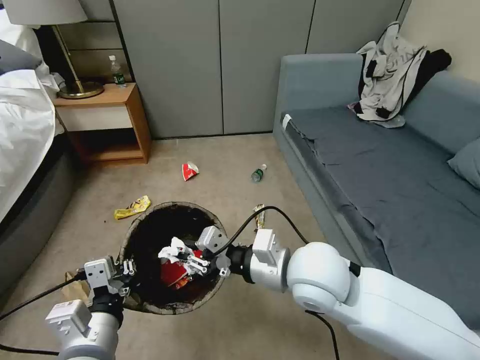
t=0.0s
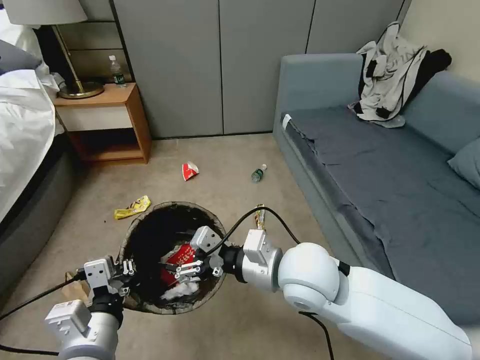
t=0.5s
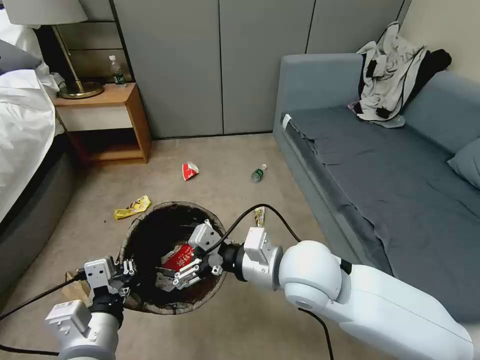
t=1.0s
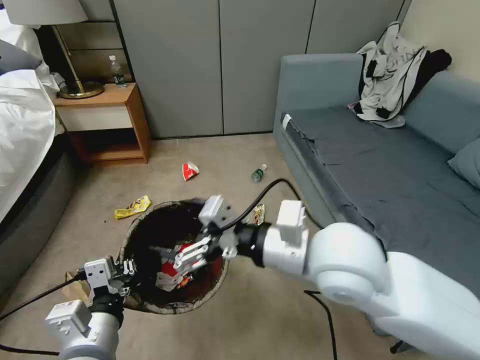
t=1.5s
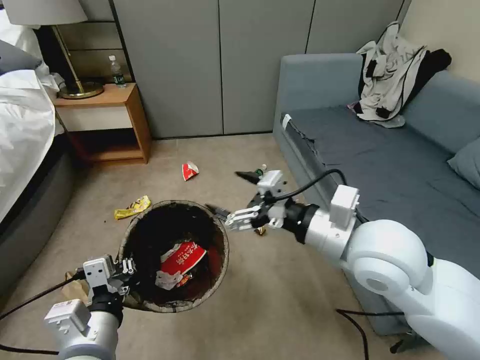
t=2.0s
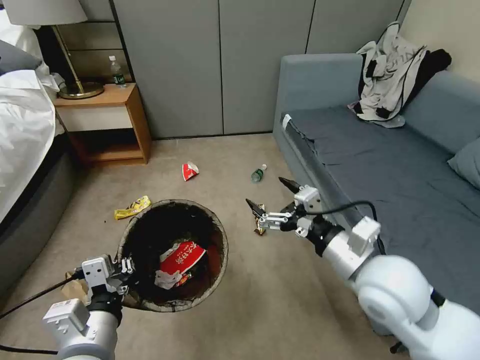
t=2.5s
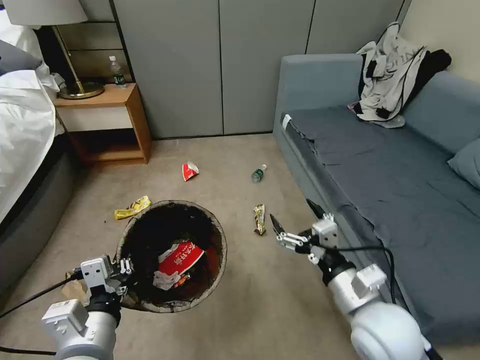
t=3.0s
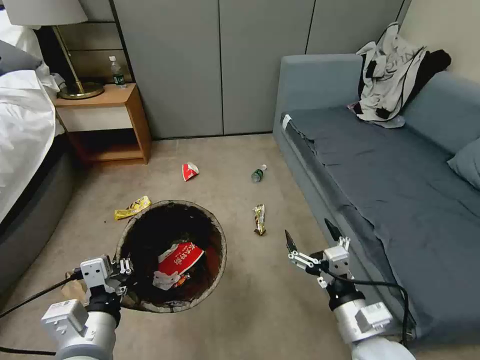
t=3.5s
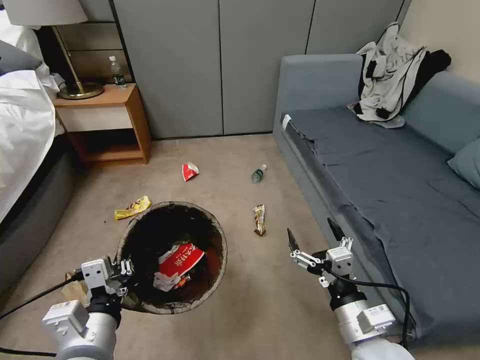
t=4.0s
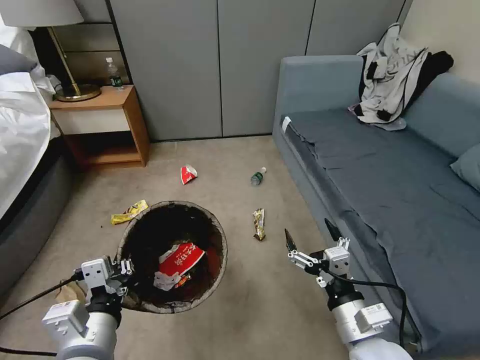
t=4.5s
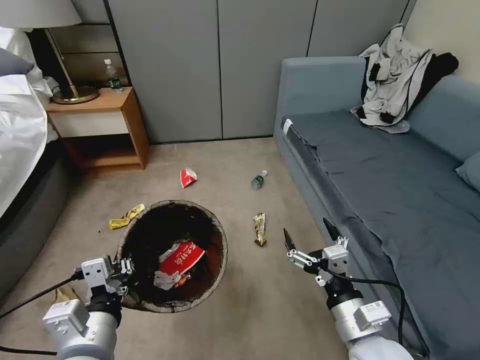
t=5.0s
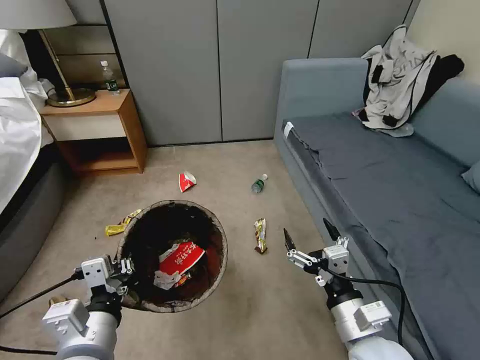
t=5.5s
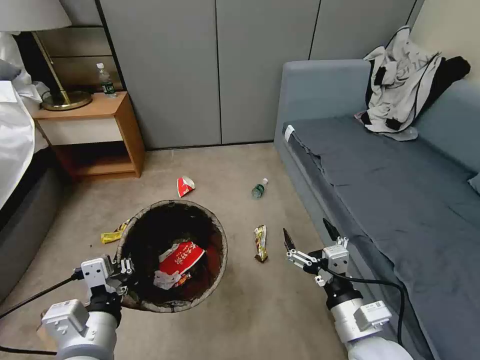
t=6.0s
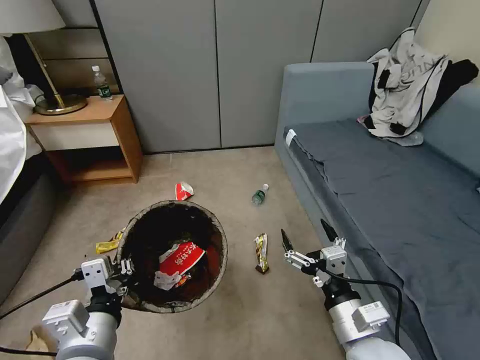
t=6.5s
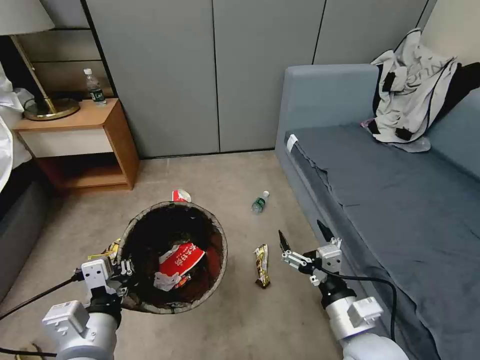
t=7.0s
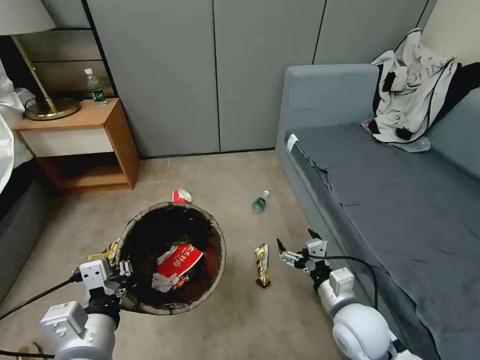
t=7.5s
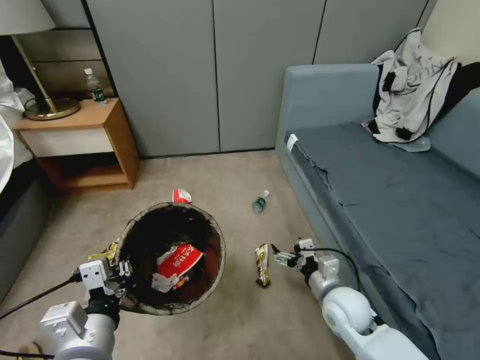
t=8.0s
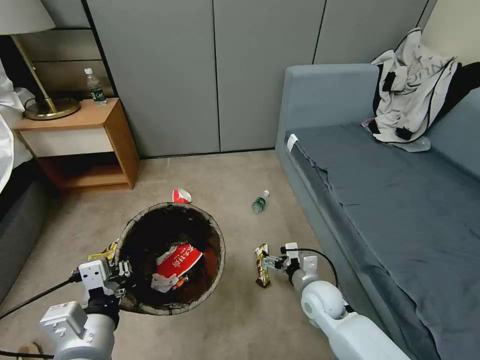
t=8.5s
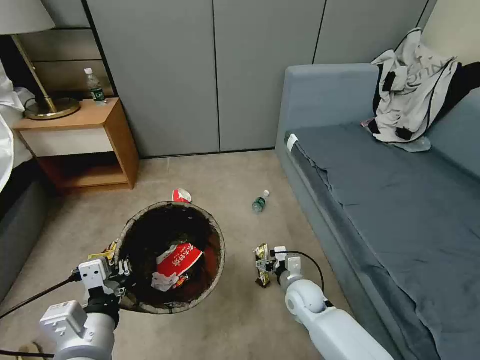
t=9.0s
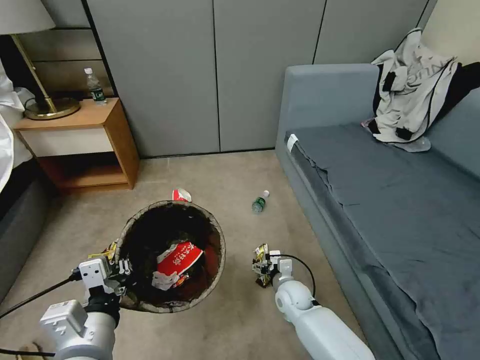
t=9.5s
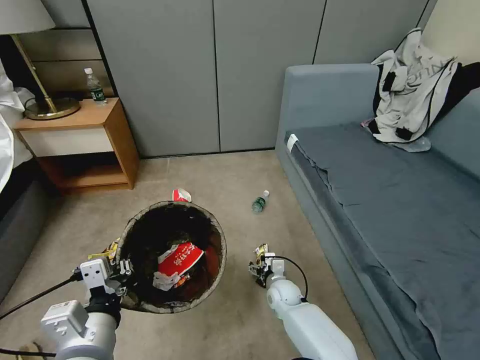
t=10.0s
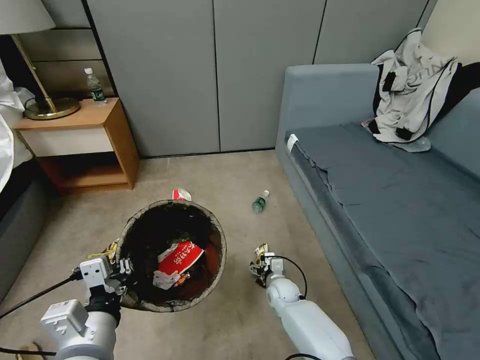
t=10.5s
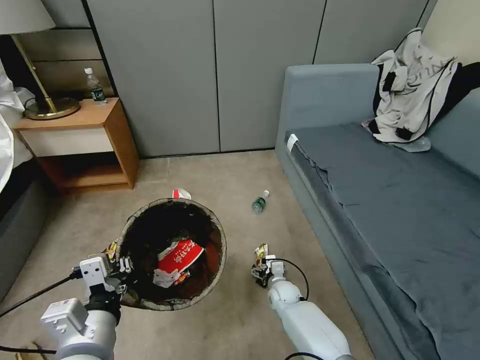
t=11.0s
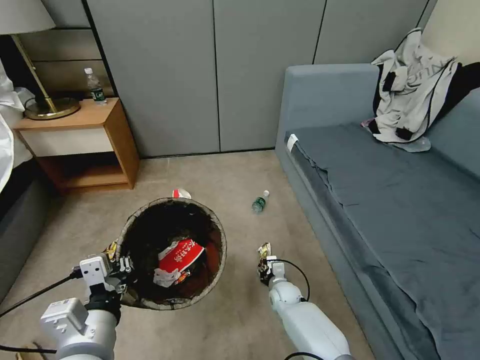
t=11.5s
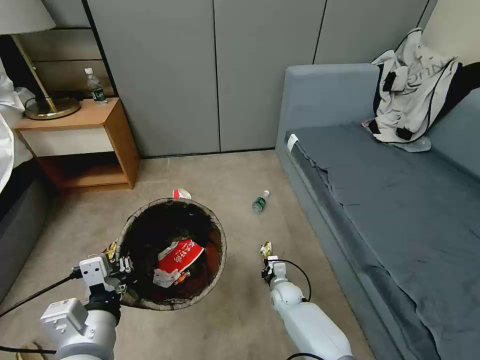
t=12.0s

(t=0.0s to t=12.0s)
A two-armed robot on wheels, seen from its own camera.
Task of the whole recording: Pick up the trash bin, then pick up the garbage from the floor and place it into the trash bin.
t=0.0s - t=2.0s: The right gripper shifts about 10 cm to the right and upward, and opens.
t=2.0s - t=4.0s: The right gripper shifts roughly 20 cm downward and backward.
t=6.0s - t=8.0s: The right gripper travels forward and downward by about 15 cm.
t=8.0s - t=10.0s: The right gripper moves downward, to the left and forward, some 20 cm.
t=10.0s - t=12.0s: The right gripper closes.

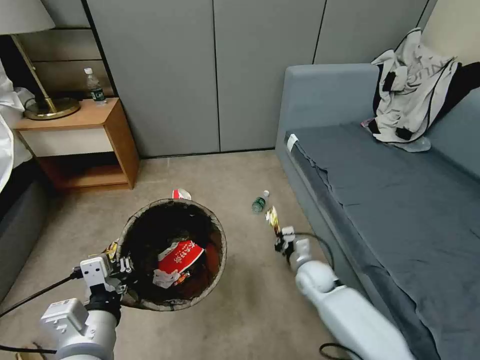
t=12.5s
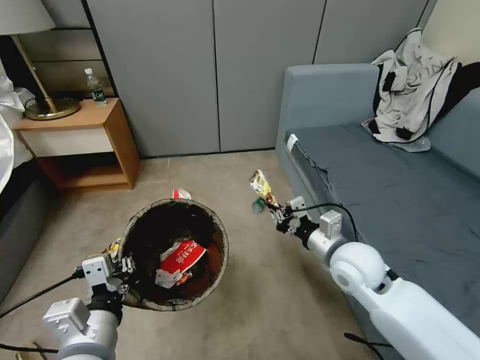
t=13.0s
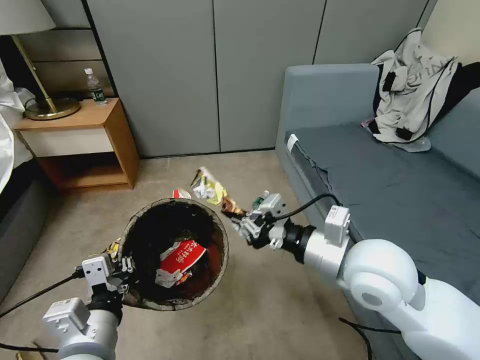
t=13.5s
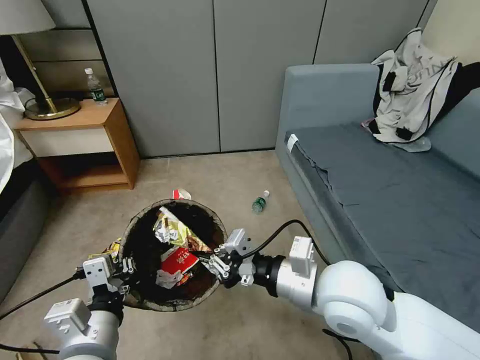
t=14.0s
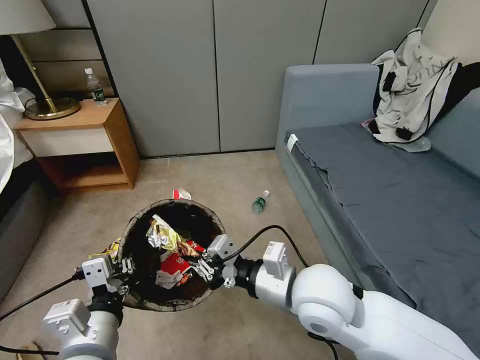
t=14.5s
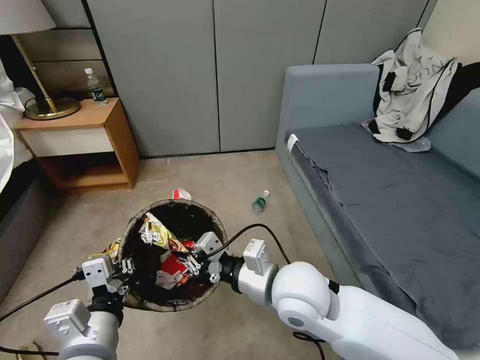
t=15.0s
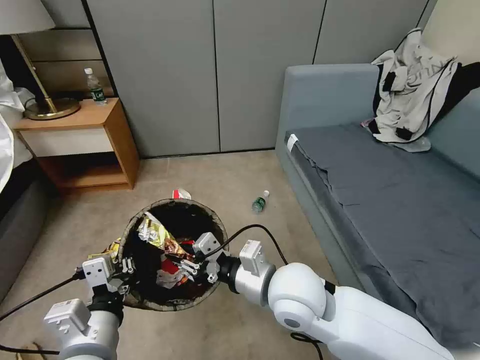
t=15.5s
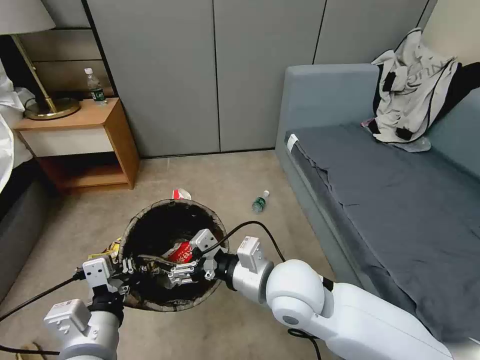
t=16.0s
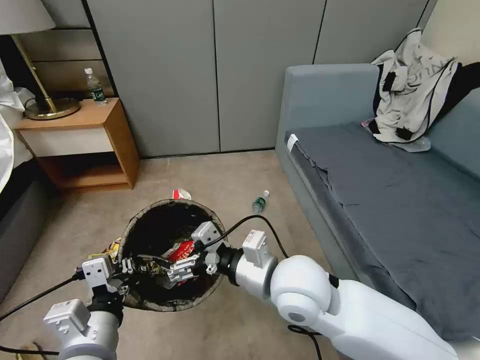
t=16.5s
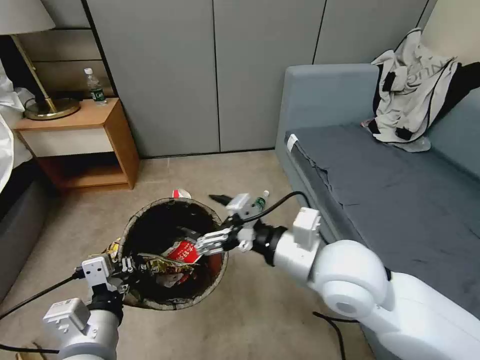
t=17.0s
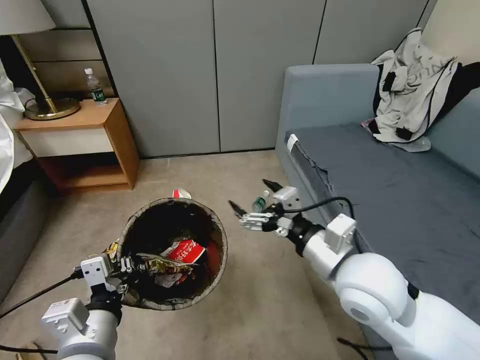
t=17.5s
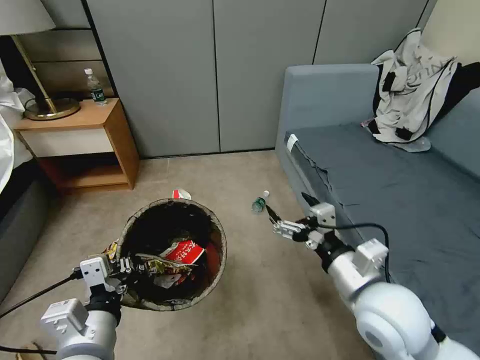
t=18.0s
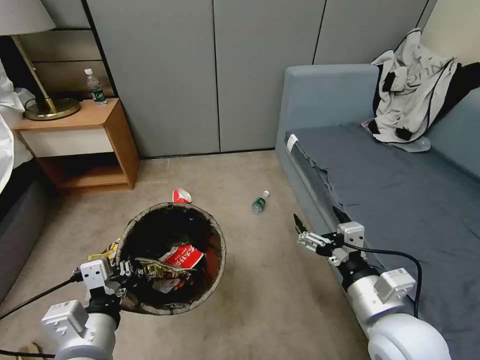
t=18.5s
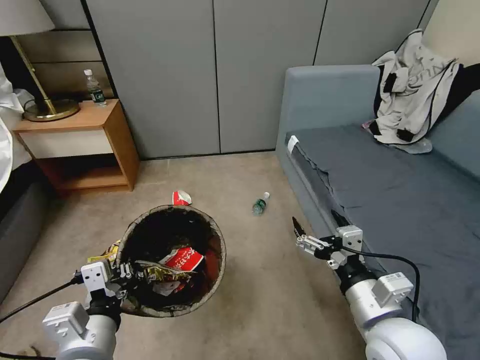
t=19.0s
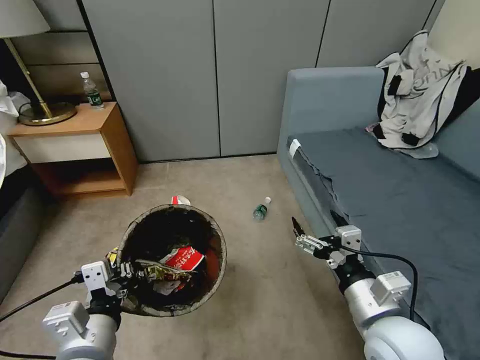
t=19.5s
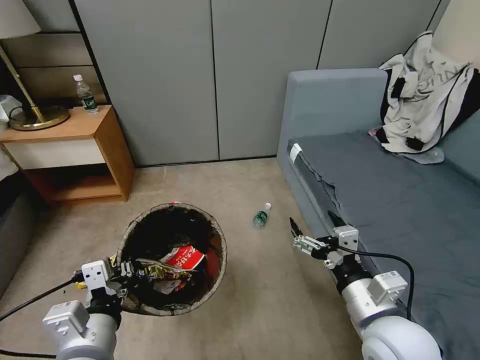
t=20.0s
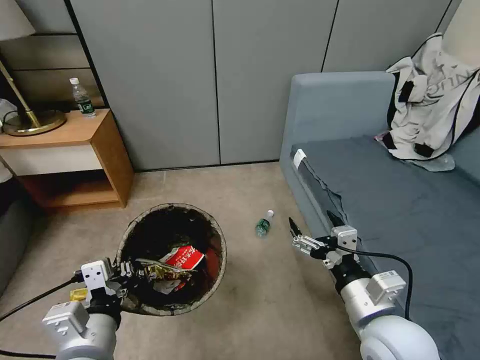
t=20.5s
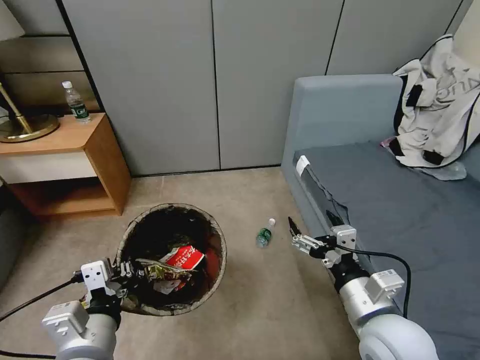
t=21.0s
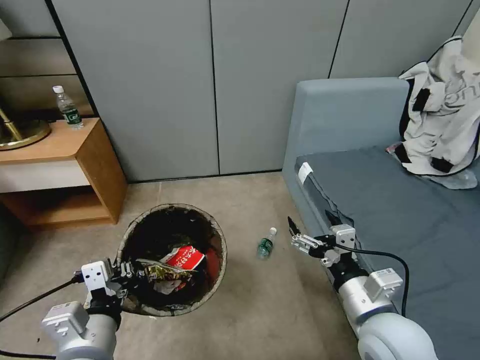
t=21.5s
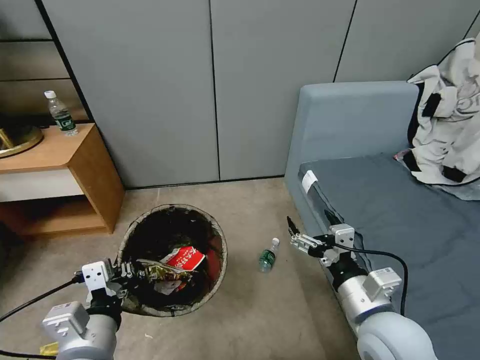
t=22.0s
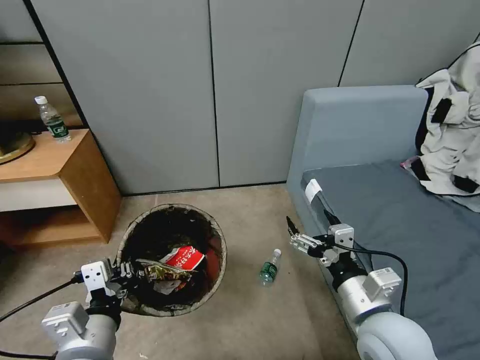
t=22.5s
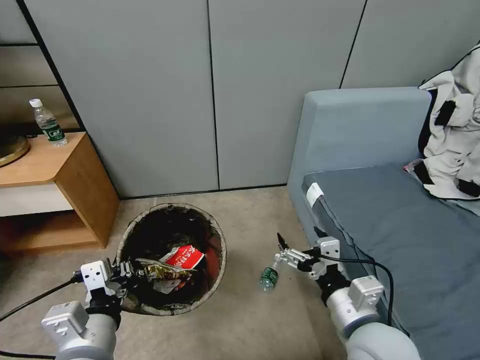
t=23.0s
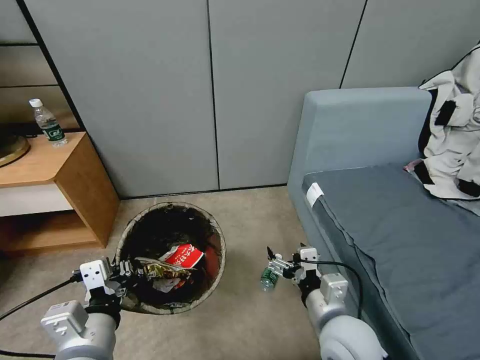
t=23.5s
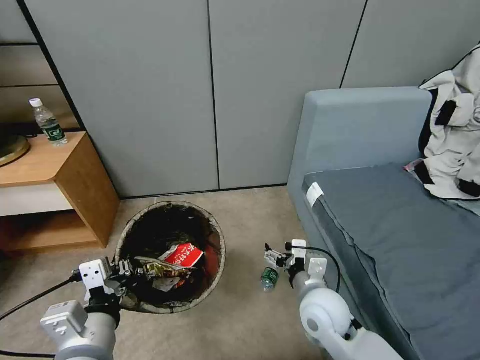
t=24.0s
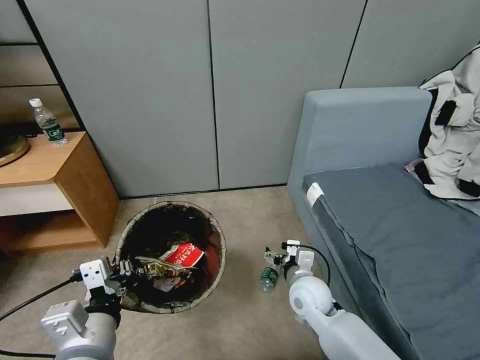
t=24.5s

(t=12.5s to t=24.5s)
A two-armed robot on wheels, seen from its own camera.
Task of the whole recording: Pick up the trash bin, then pick up the garbage from the floor and place it into the trash bin.
t=12.5s - t=14.5s: The right gripper heads upward and backward, covering roughly 30 cm.
t=14.5s - t=16.5s: The right gripper opens its fingers.
t=16.5s - t=18.5s: The right gripper goes roughly 15 cm to the right and backward.
t=22.5s - t=24.5s: The right gripper is displaced downward, forward and to the left by roughly 20 cm.

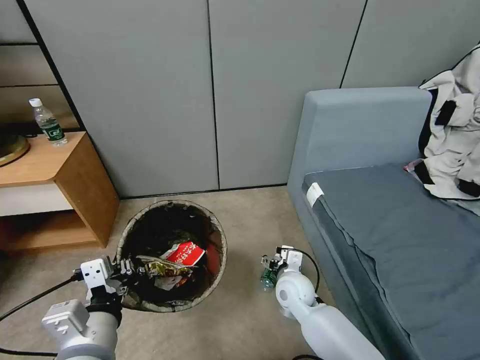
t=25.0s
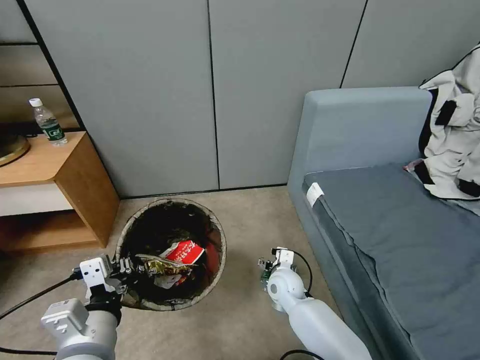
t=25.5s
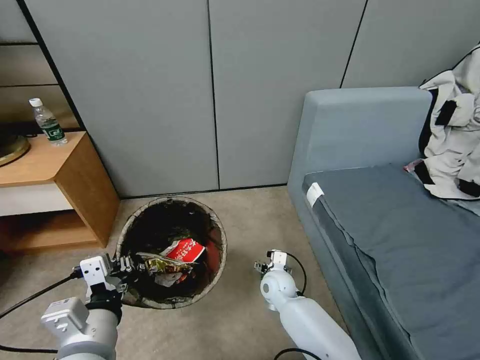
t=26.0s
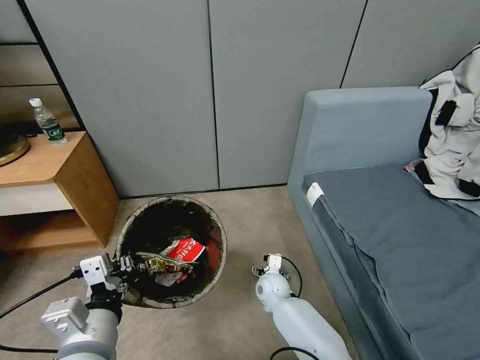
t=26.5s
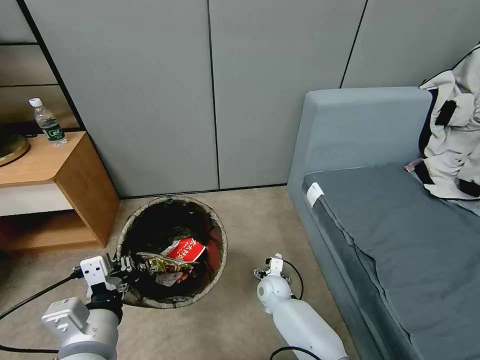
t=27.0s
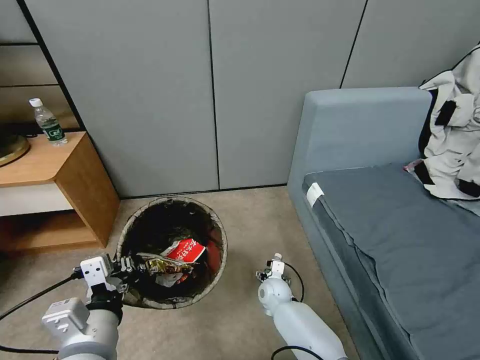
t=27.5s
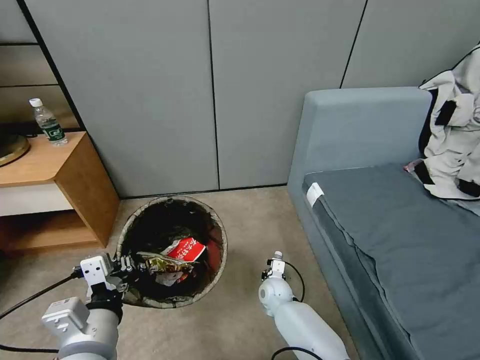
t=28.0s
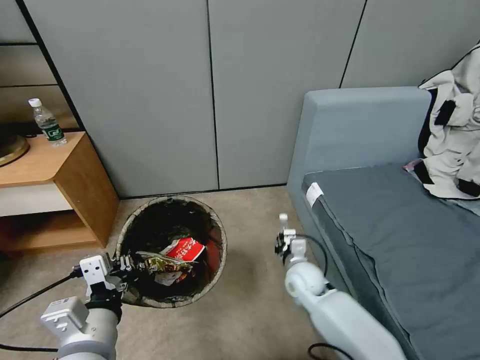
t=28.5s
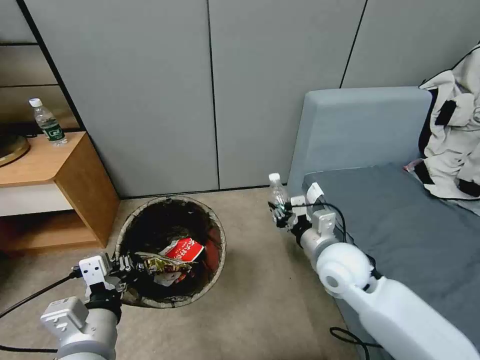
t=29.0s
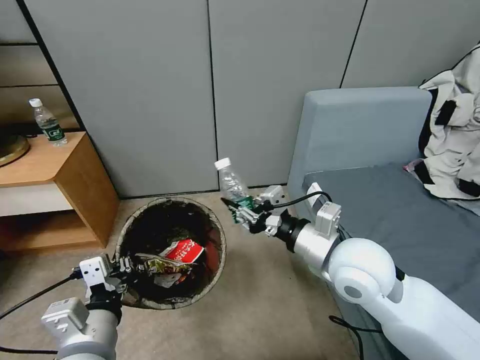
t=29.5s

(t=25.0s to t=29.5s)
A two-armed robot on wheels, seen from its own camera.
Task of the whole recording: Pick up the trash bin, then pick up the garbage from the floor and place it into the trash bin.
t=25.0s - t=27.0s: The right gripper is displaced downward by approximately 10 cm.
t=27.0s - t=29.5s: The right gripper heads upward, covering roughly 35 cm, and closes its fingers.
